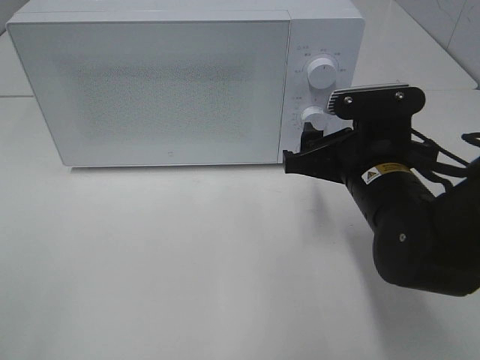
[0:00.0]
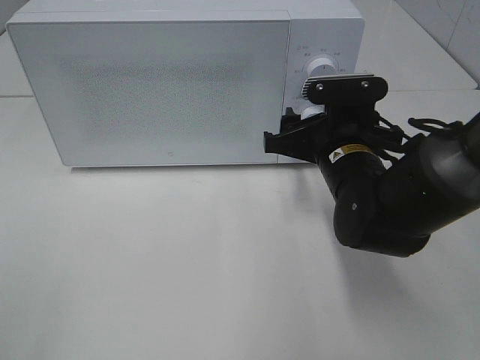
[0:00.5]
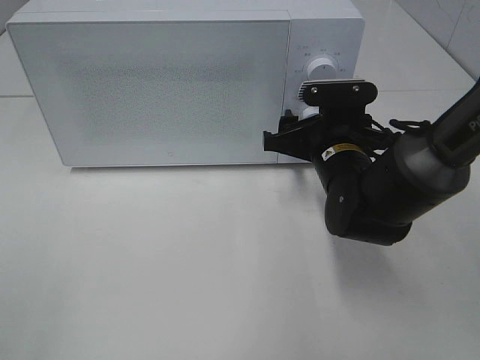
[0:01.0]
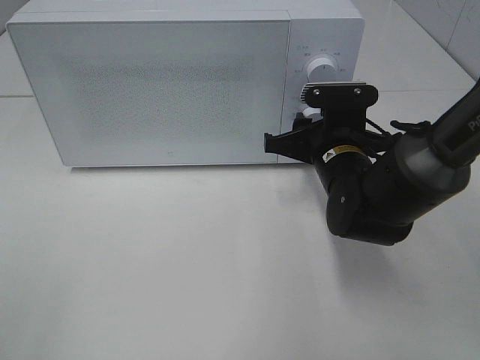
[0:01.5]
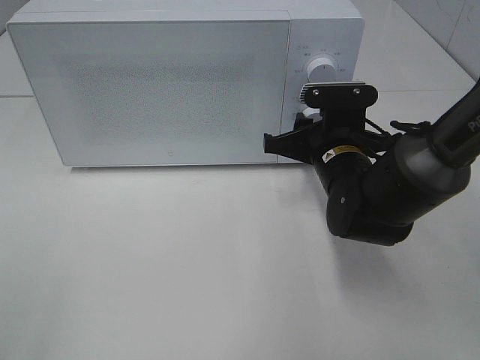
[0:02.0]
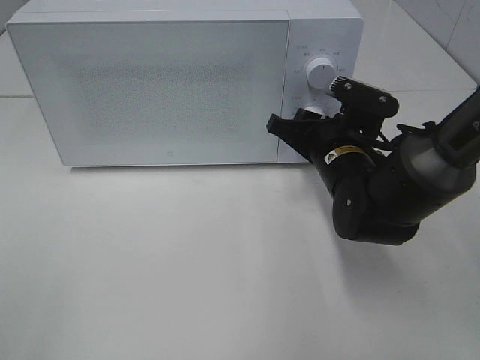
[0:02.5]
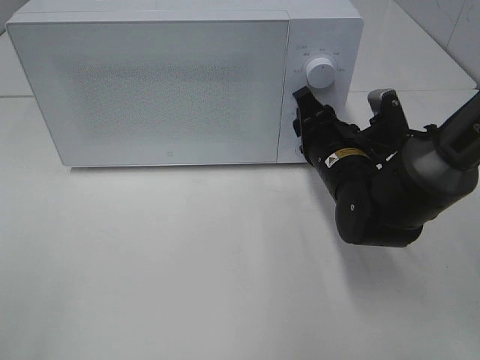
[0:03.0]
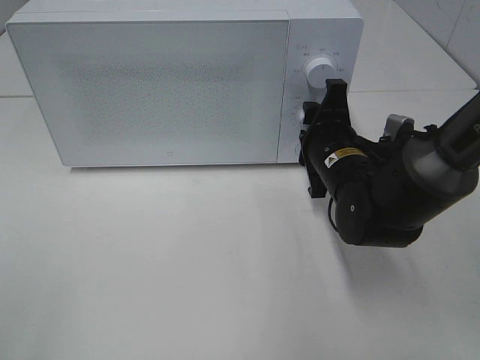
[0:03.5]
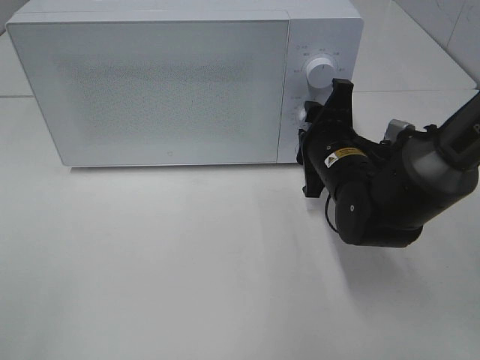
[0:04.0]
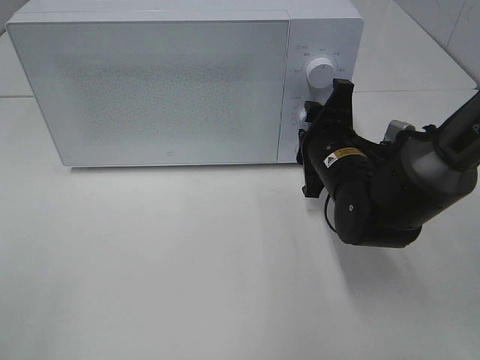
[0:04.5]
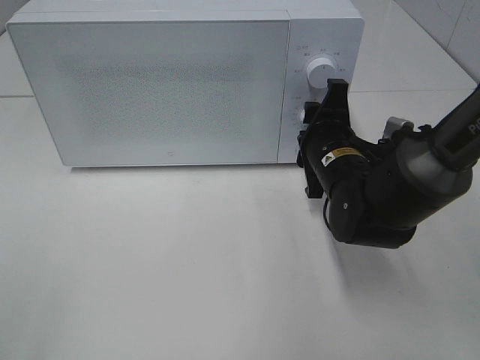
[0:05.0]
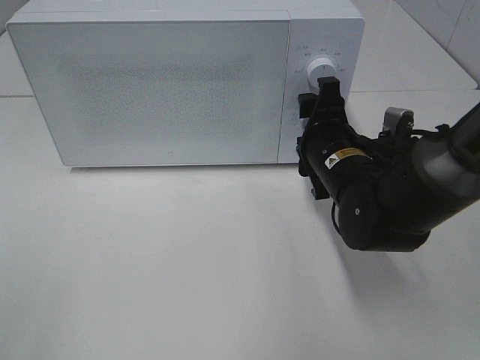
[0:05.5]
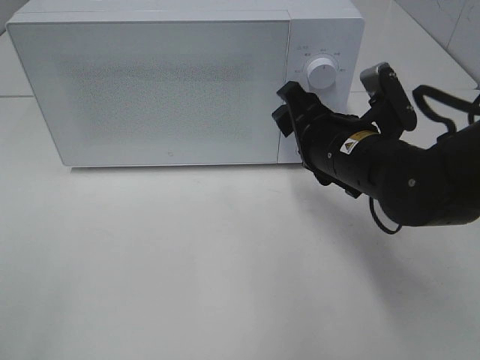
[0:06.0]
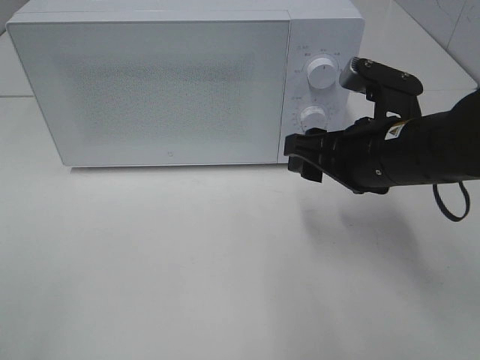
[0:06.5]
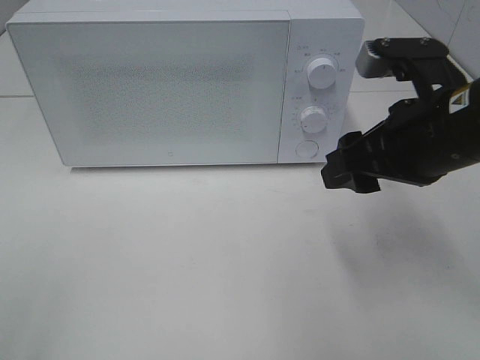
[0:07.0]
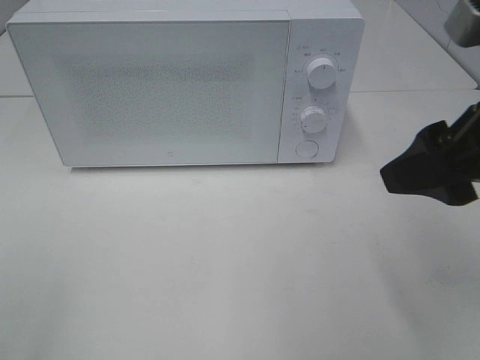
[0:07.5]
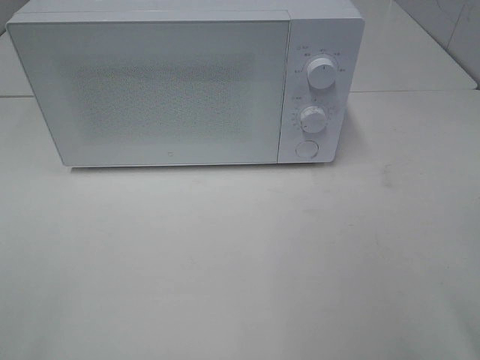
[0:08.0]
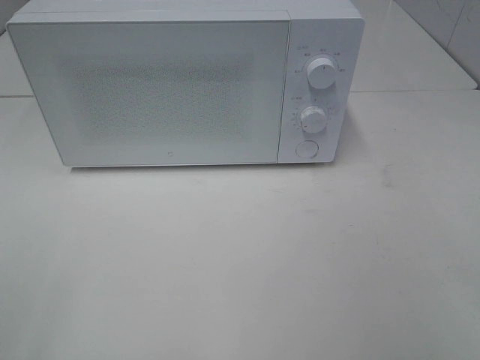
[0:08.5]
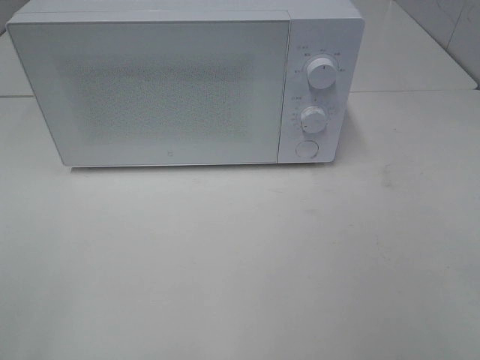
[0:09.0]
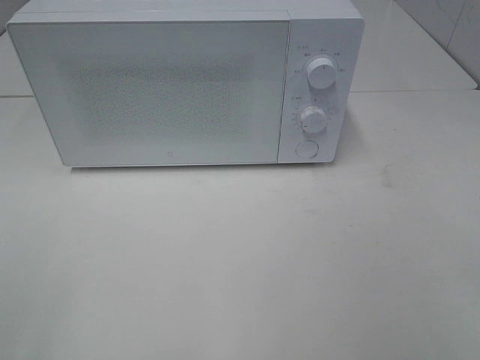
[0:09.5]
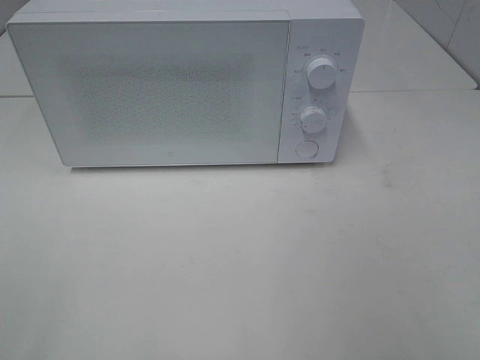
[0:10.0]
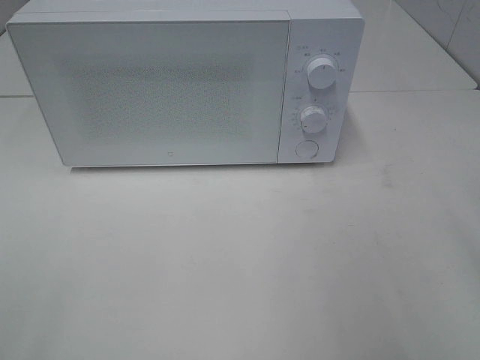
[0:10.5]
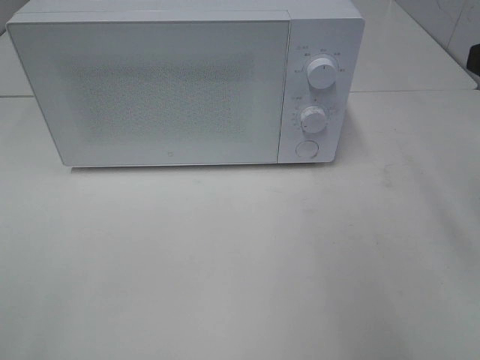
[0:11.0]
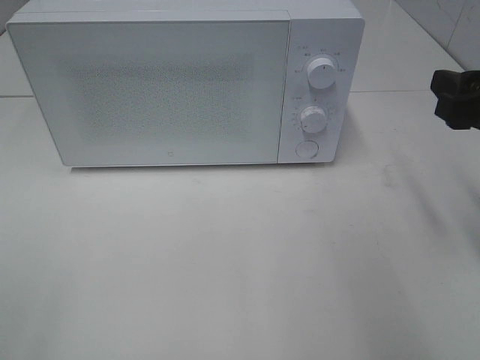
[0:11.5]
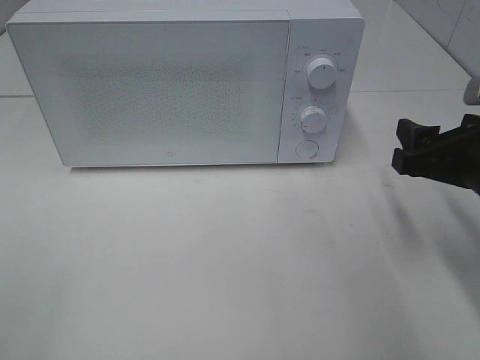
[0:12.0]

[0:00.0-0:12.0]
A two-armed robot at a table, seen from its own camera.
Task of the whole recording: Heat the burger.
Step, 0.0 to 5.5 s: Right hand: twist timer button.
0.0 to 2.0 s: The right gripper goes roughly 5 cm forward, and closes its fingers.
4.0 to 6.0 s: The right gripper shifts by approximately 5 cm.
6.0 to 8.0 s: The right gripper heads backward, to the right and upward, covering roughly 25 cm.
10.0 to 12.0 s: The right gripper shifts about 20 cm forward and downward.

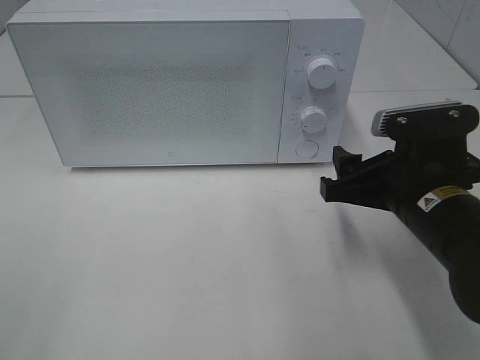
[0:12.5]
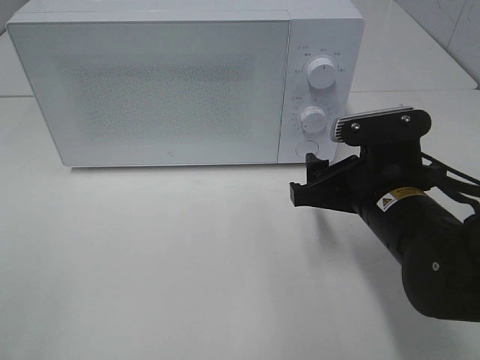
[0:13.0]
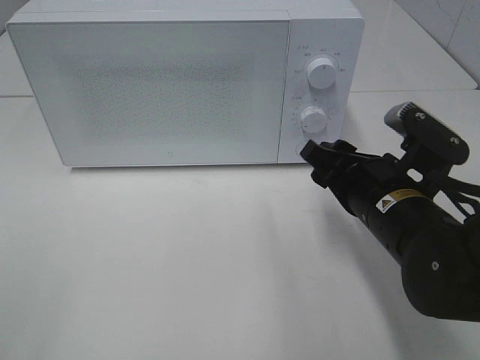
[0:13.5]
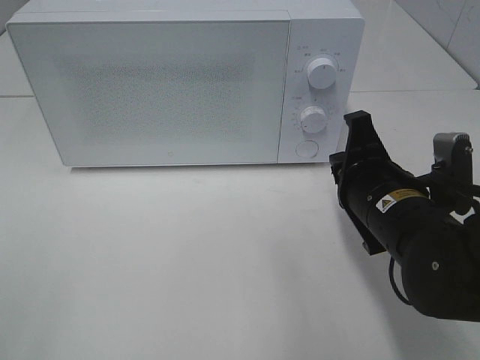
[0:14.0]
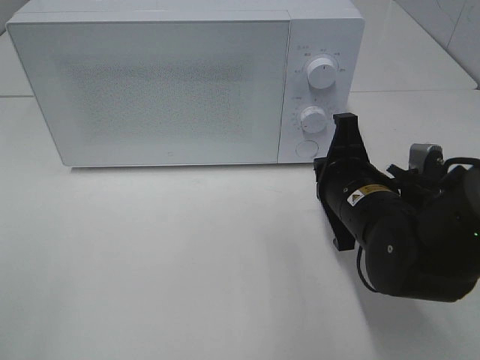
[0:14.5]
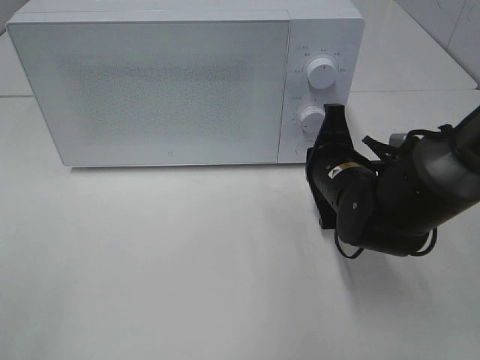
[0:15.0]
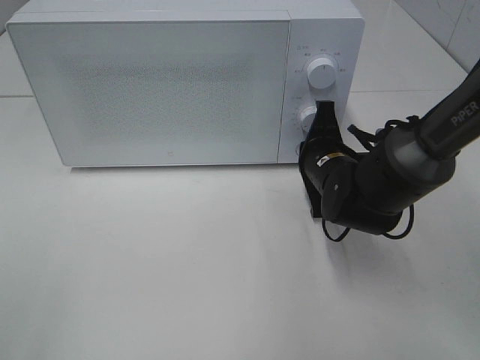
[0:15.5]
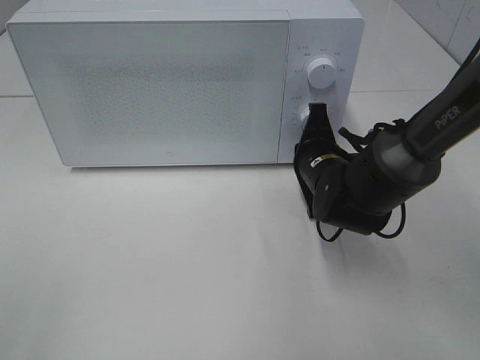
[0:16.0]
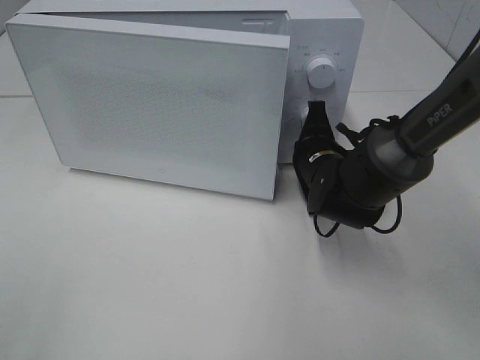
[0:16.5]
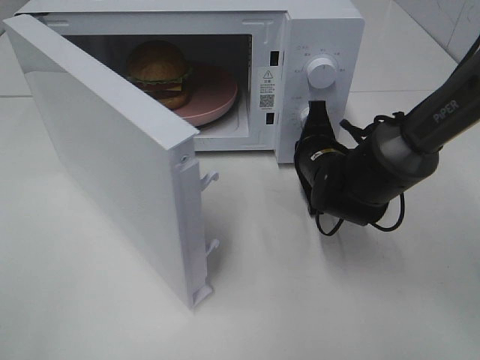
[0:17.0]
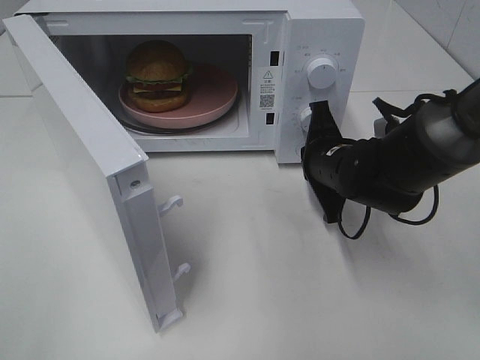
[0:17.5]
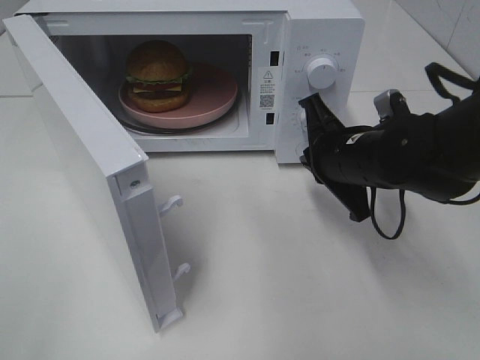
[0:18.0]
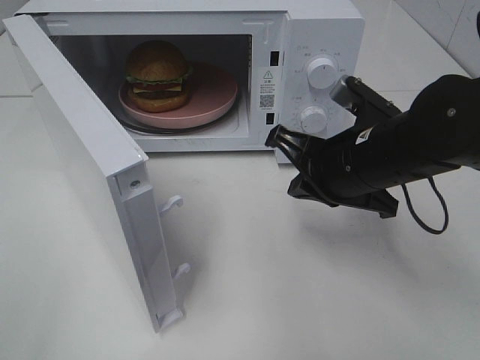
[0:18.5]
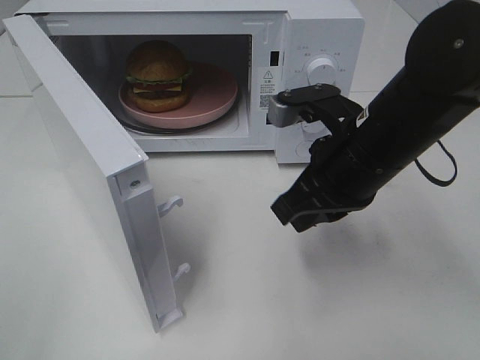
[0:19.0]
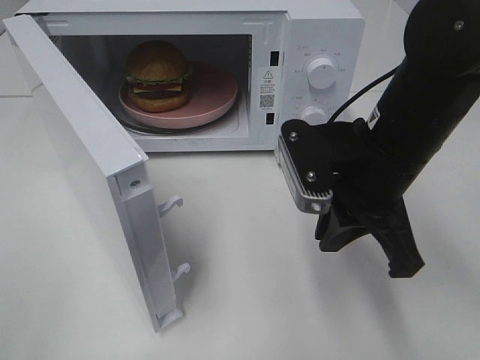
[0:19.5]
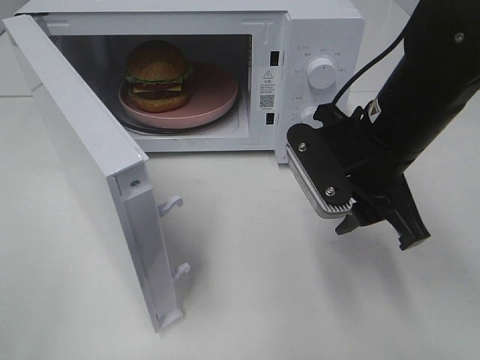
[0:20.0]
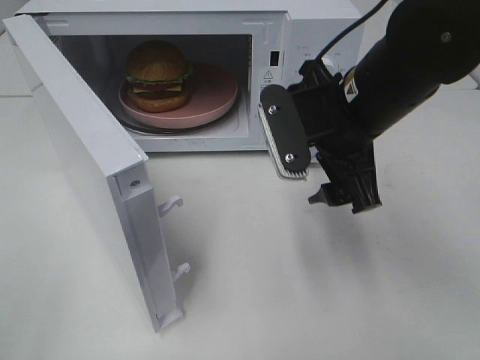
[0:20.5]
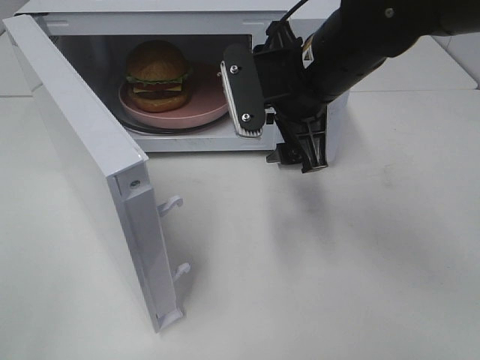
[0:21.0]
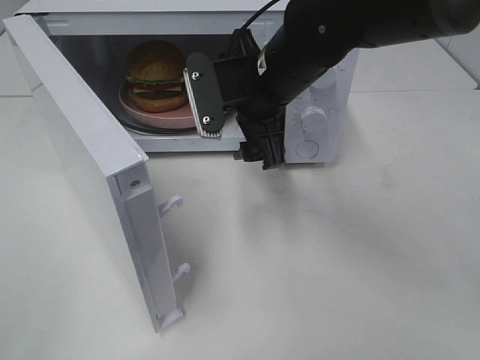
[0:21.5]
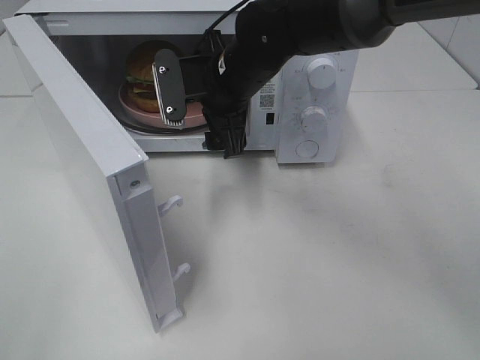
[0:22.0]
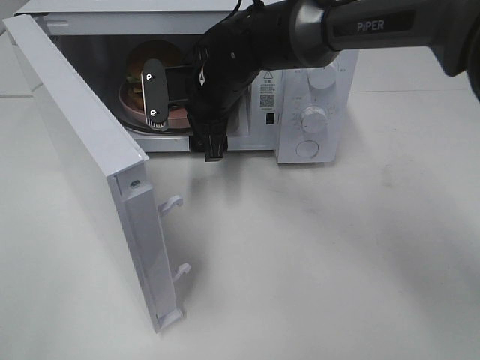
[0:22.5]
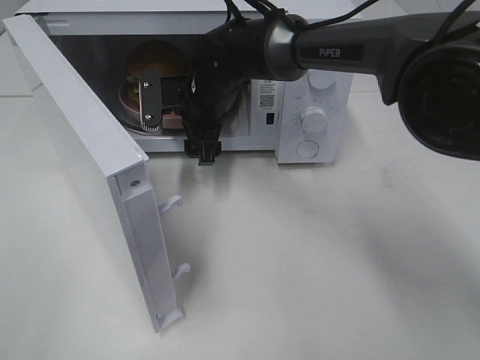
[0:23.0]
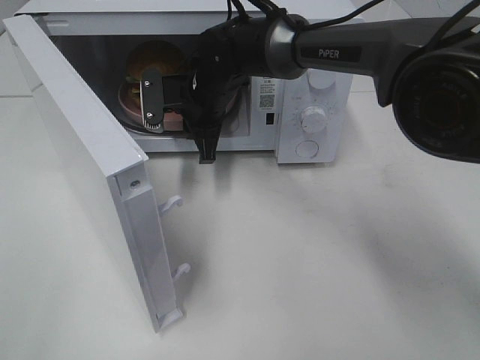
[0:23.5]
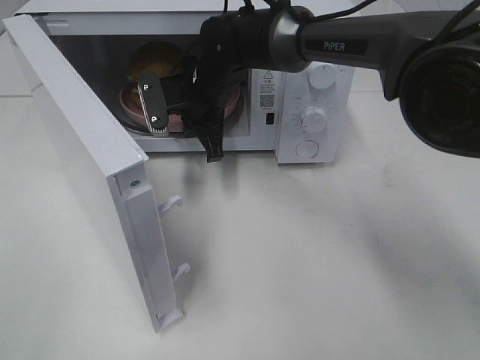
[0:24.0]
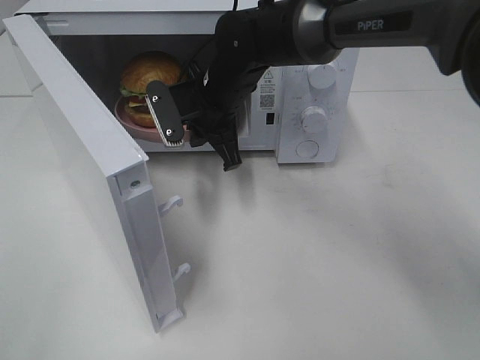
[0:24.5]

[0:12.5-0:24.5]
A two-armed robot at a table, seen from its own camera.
Task of the whole recording: Heat the burger.
Step, 12.5 to 17.5 s: Right hand: press the switch.
Step, 18.0 to 23.5 s: Right hand: grab the plate with the hamburger.
12.5 to 14.5 s: The right gripper moves roughly 5 cm, and closes up.
14.5 to 16.5 s: The right gripper shifts approximately 10 cm forward.
16.5 to 18.5 s: The right gripper goes some 15 cm backward and upward.
18.5 to 20.5 s: The right gripper is displaced upward by approximately 5 cm, and opens up.
20.5 to 22.5 s: The right gripper moves forward, to the left and downward, approximately 20 cm.
22.5 to 24.5 s: The right gripper closes.

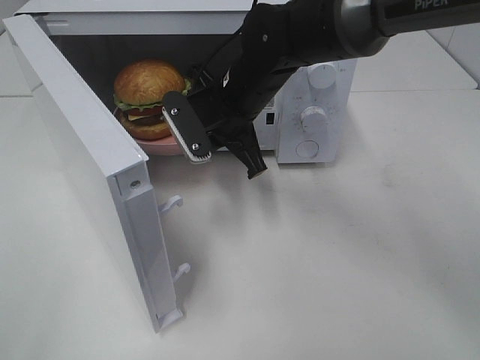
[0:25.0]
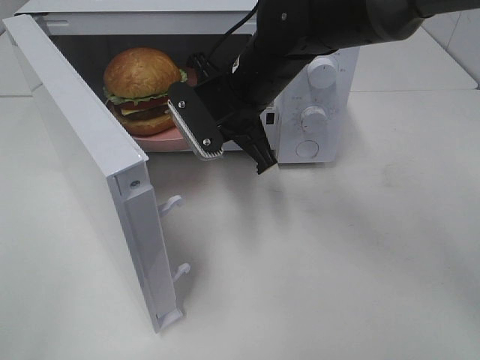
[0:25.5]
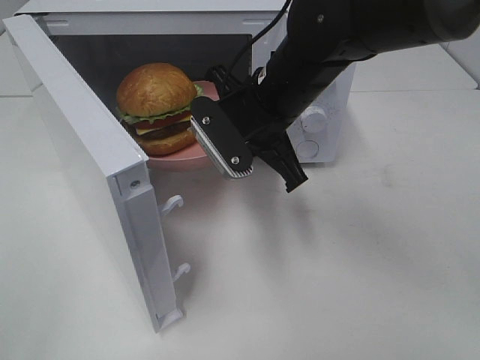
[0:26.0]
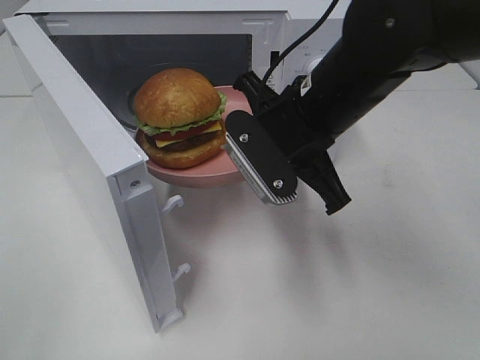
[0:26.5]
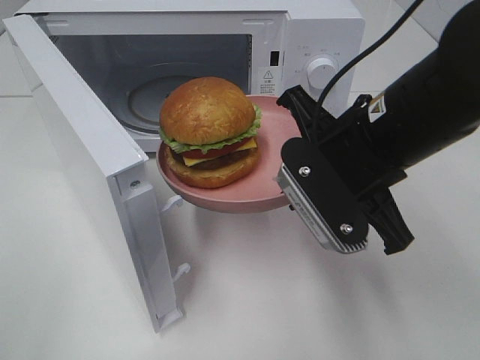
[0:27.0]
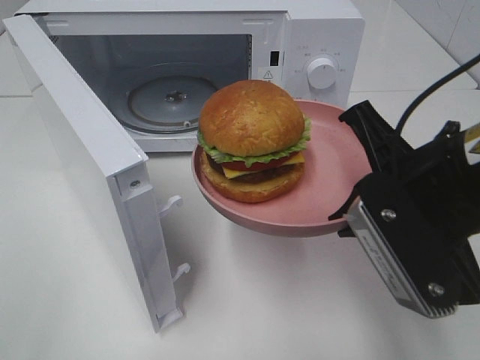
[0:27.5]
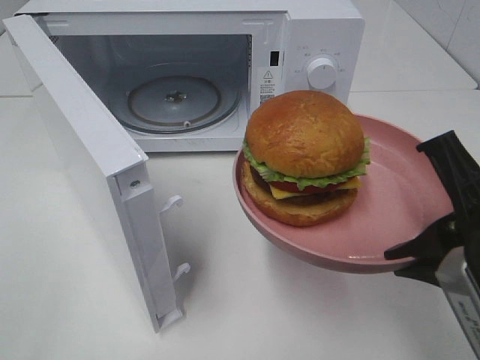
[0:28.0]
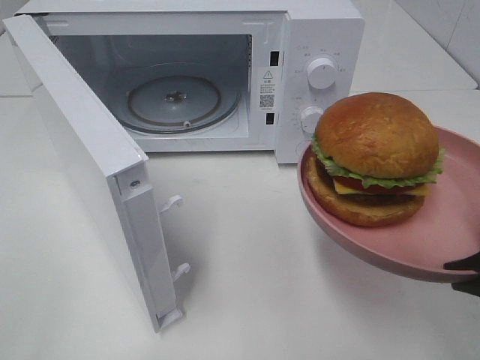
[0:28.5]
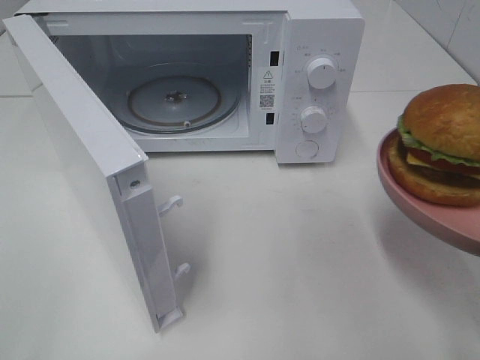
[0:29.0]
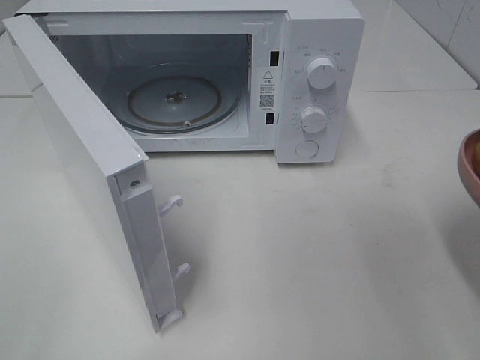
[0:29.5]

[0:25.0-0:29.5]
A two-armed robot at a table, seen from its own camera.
Task of the whole recording: Heat the burger.
25.0 to 27.0 s: The right gripper moves backward and to the right, about 20 cm.
27.0 to 29.5 s: The right gripper moves to the right and backward, approximately 20 cm.
